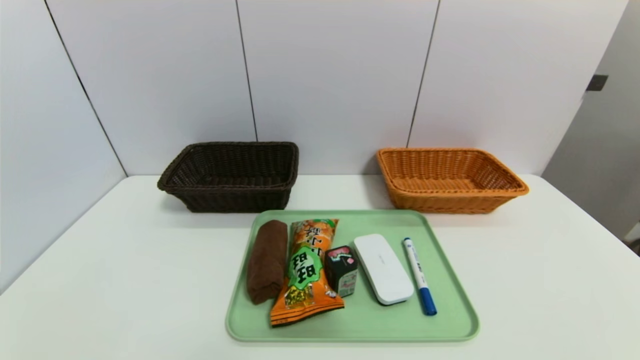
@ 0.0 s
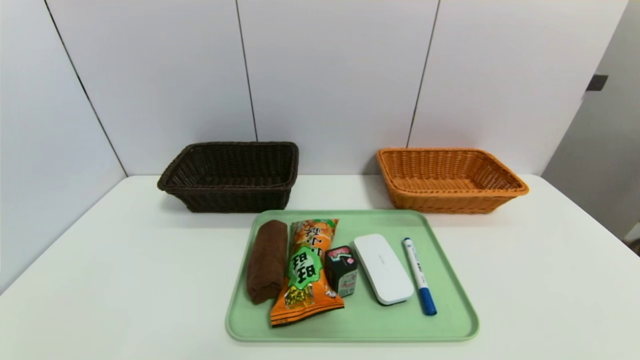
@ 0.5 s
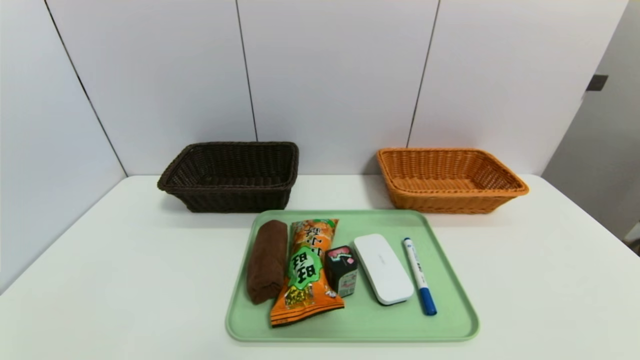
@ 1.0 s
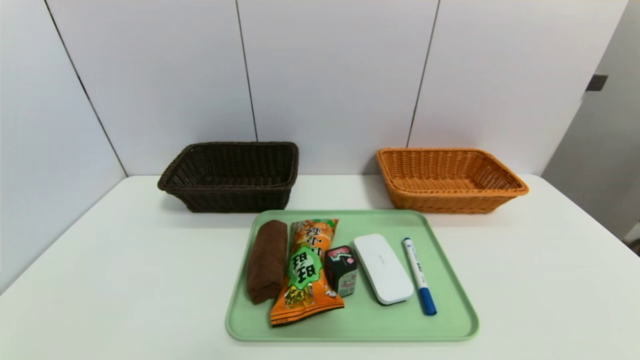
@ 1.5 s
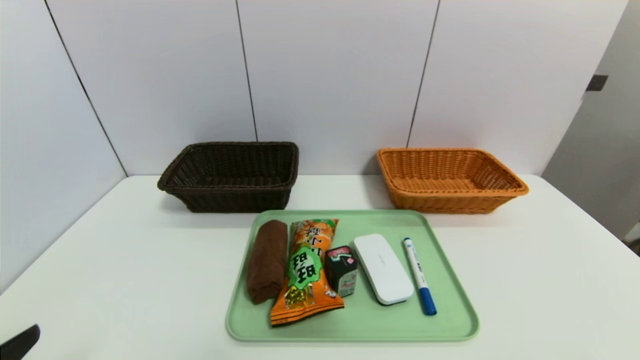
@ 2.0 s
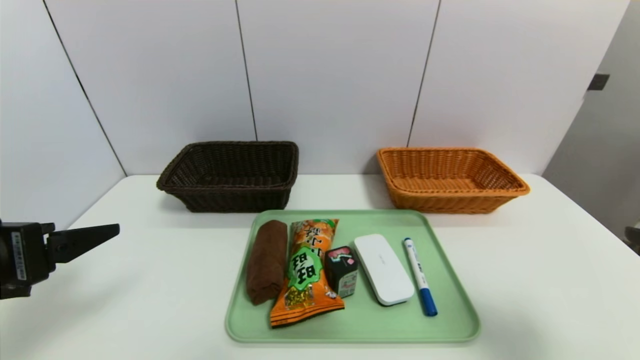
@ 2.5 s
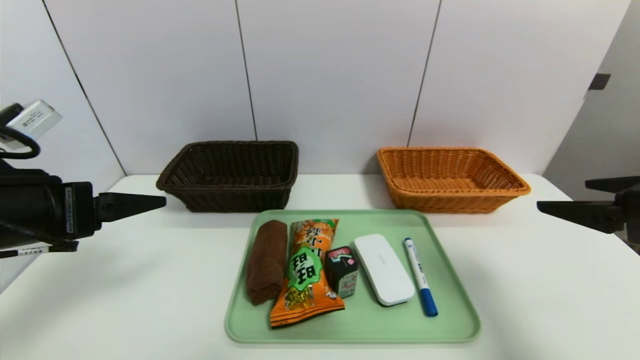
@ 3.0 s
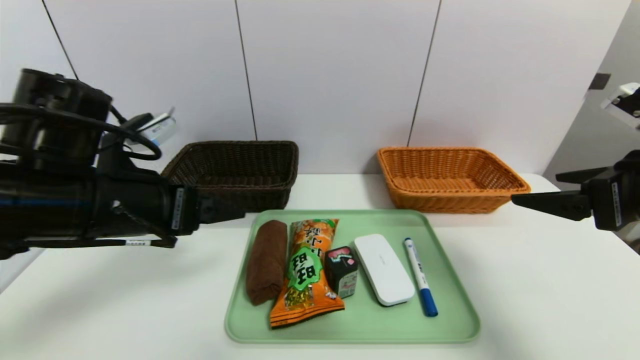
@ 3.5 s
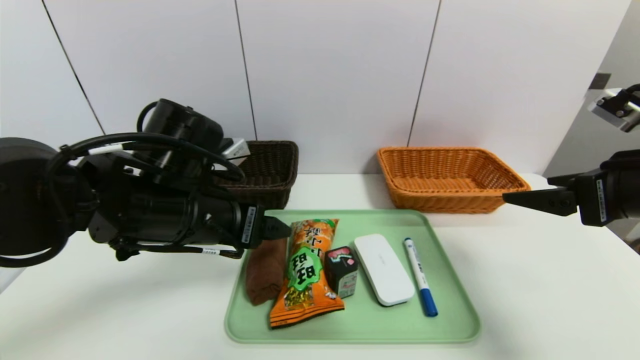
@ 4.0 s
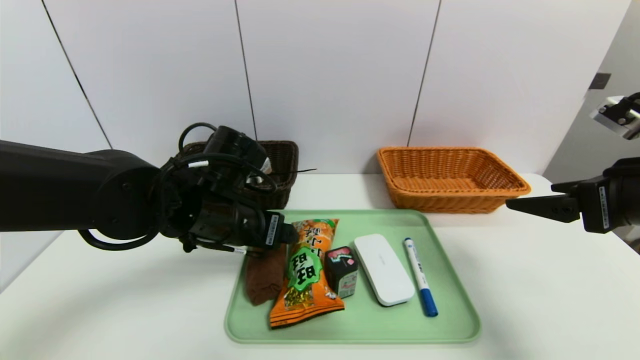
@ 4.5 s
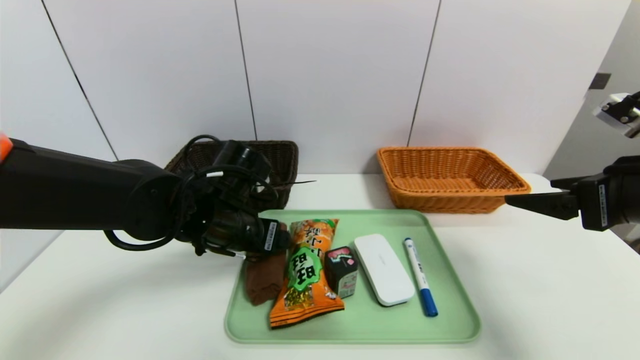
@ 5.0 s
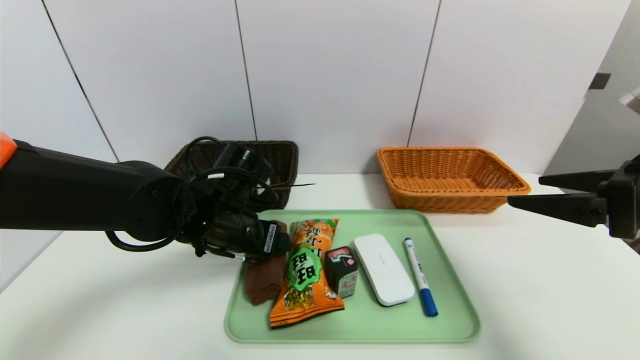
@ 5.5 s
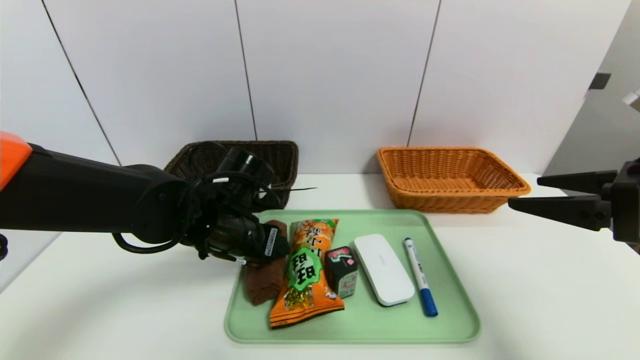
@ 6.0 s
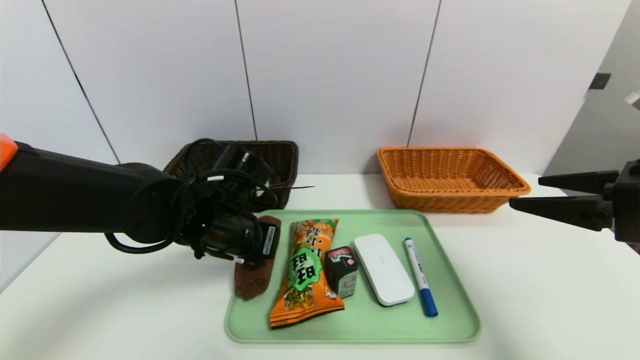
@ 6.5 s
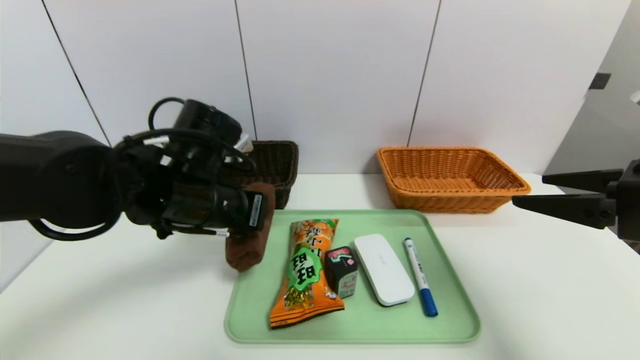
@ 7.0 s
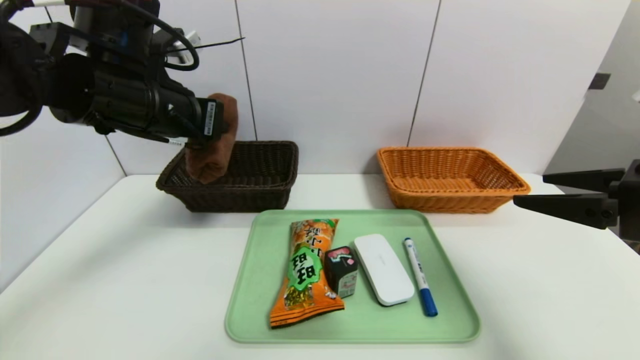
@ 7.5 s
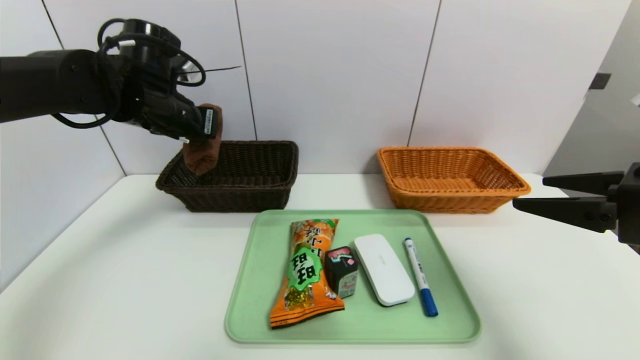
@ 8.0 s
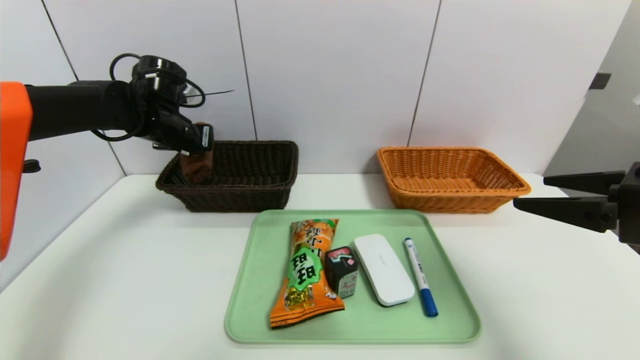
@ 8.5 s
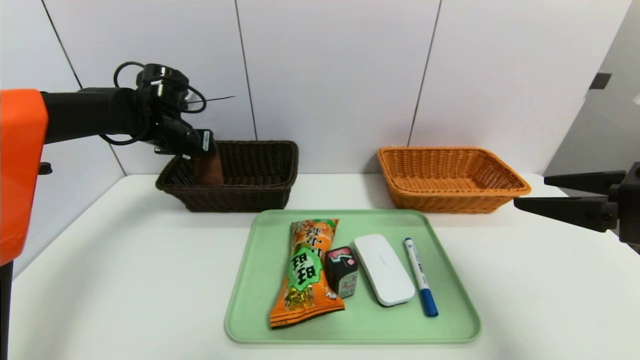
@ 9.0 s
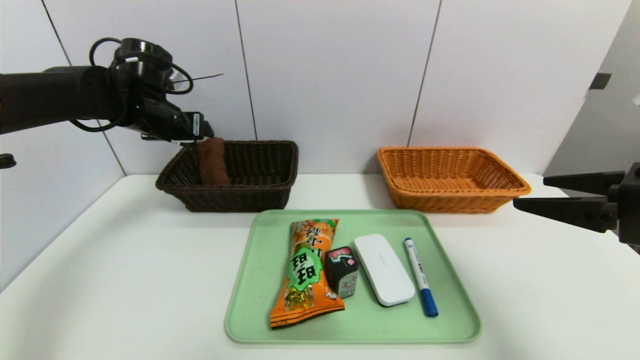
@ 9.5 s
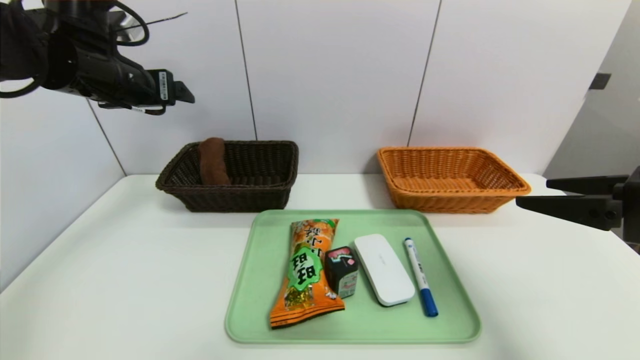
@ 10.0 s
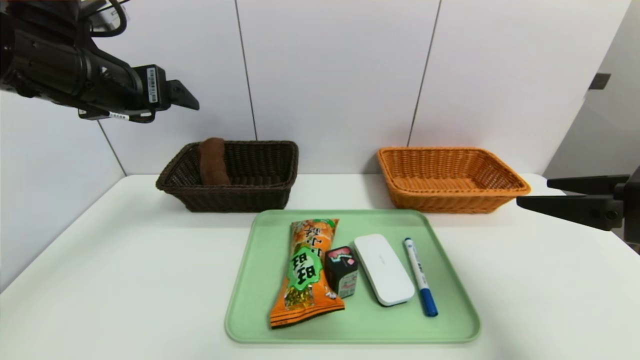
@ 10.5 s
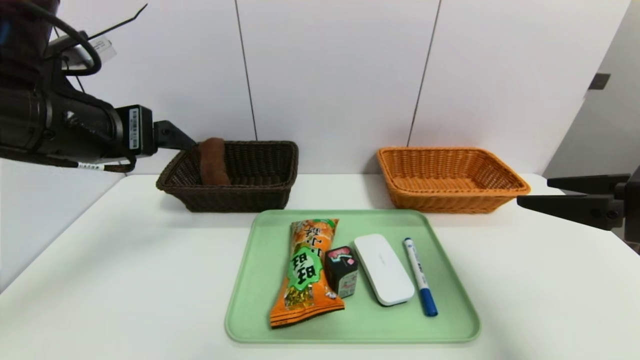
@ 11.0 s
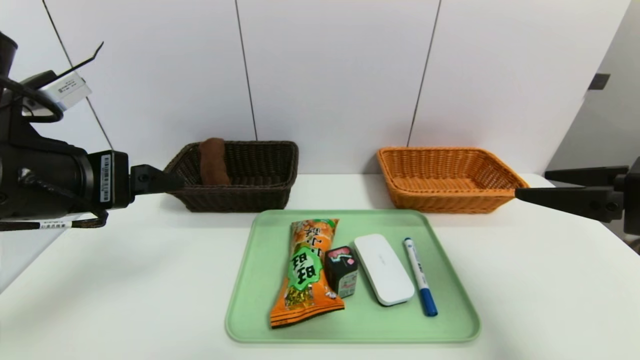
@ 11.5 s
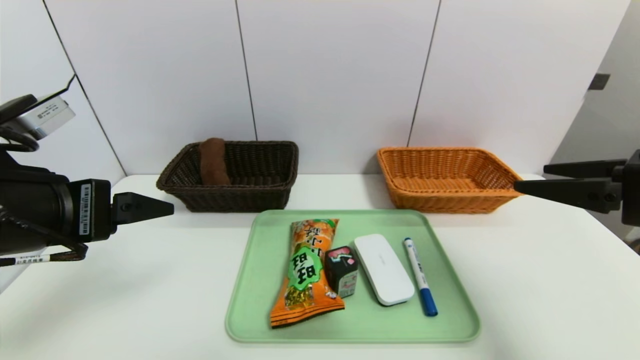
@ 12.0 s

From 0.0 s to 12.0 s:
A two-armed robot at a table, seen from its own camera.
Task of the whole recording: place the food in the right basket with the right gripper, and place the non food items in the left basket with the left gripper.
Step, from 0.0 s to 9.5 s: Grasp the brown towel and put it in the left basket.
From 2.0 s to 4.0 s: The left gripper travels forward and to the right by some 25 cm; the right gripper is displaced forward by approximately 20 cm.
From 4.0 s to 6.0 s: The left gripper goes approximately 10 cm downward and forward.
From 6.0 s to 8.0 s: The left gripper heads upward, to the left and forward, covering some 20 cm, and closes up.
From 8.0 s to 10.0 s: The left gripper changes place by approximately 5 cm, and opens.
From 10.0 s to 12.0 s: The left gripper heads backward, covering approximately 20 cm.

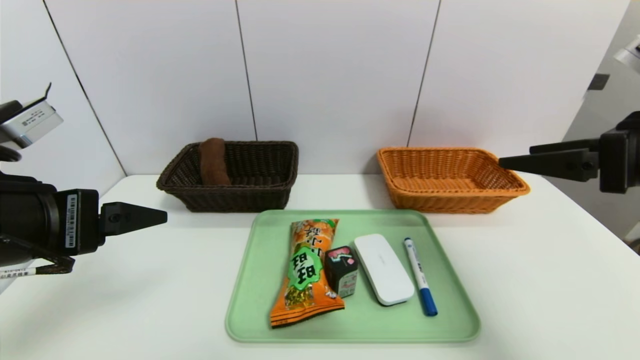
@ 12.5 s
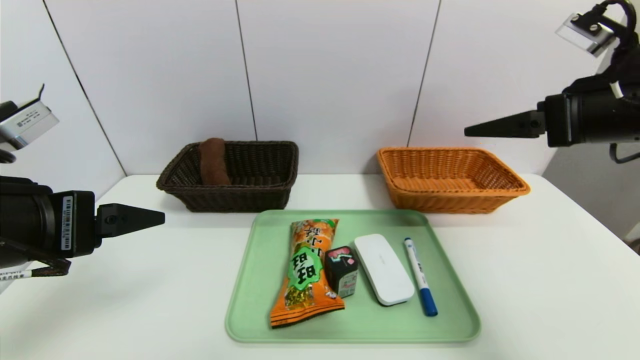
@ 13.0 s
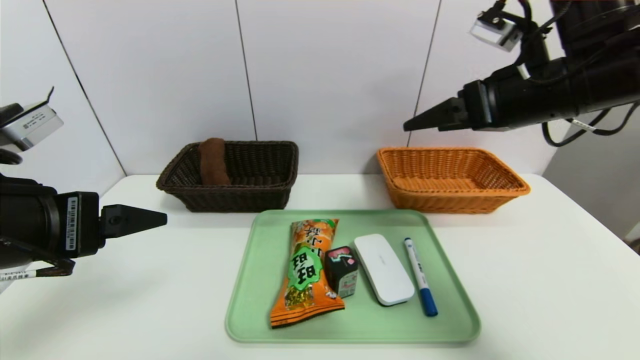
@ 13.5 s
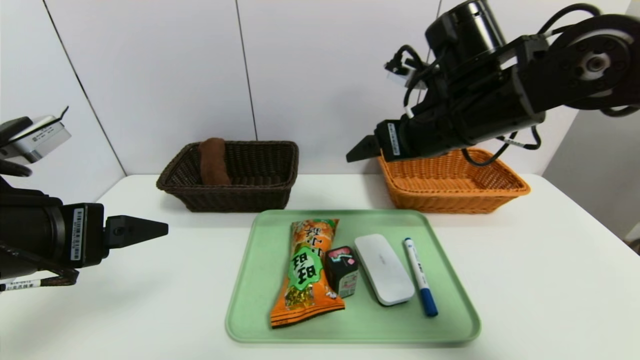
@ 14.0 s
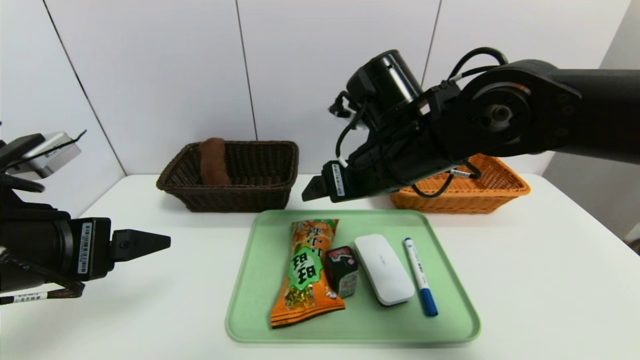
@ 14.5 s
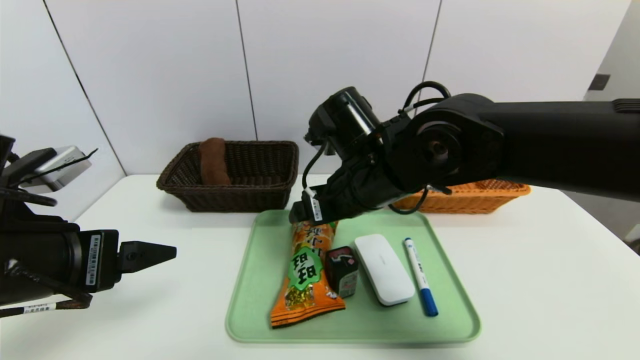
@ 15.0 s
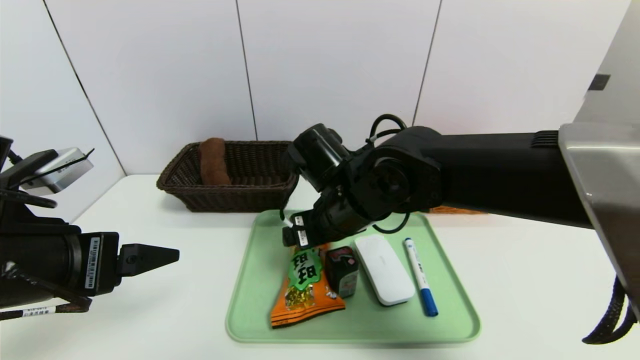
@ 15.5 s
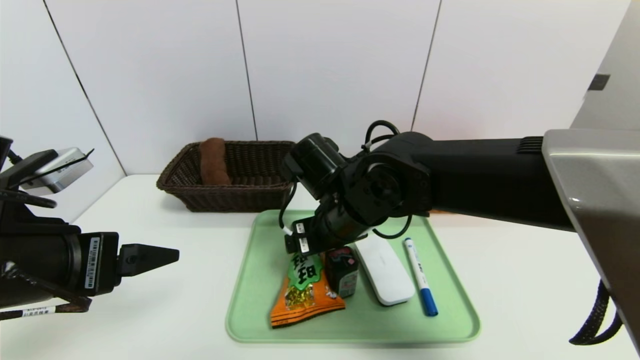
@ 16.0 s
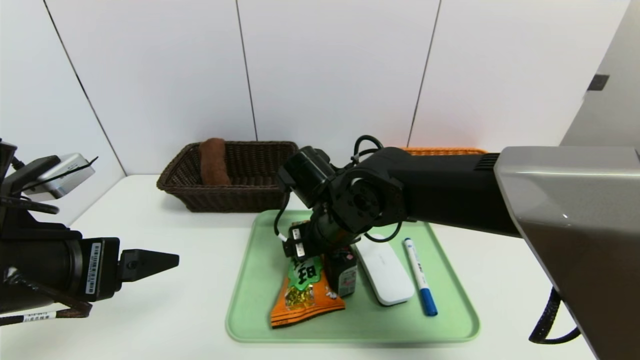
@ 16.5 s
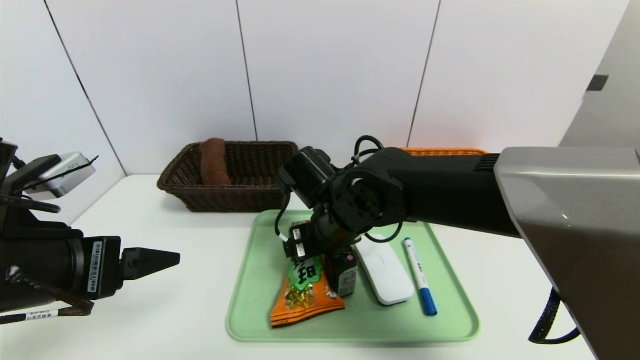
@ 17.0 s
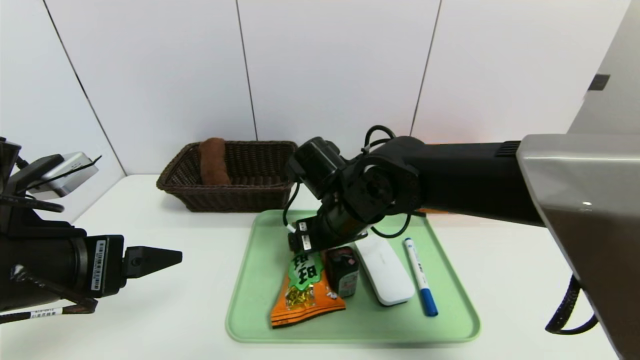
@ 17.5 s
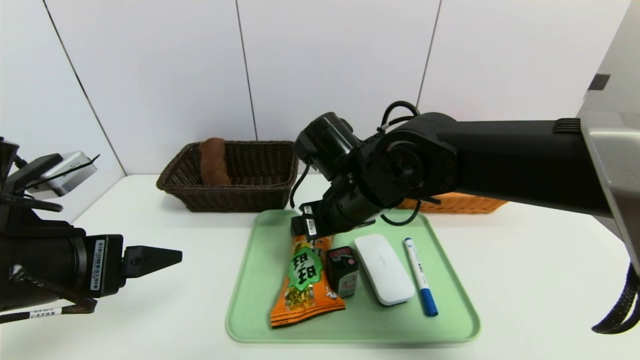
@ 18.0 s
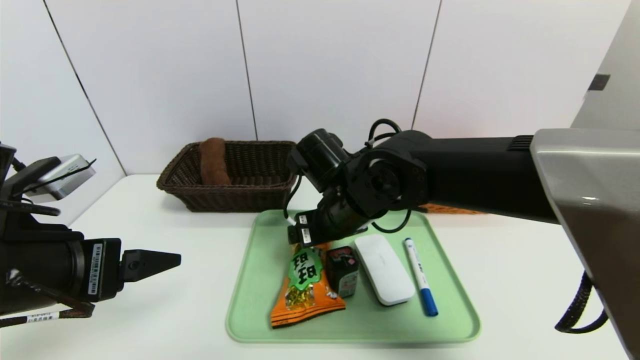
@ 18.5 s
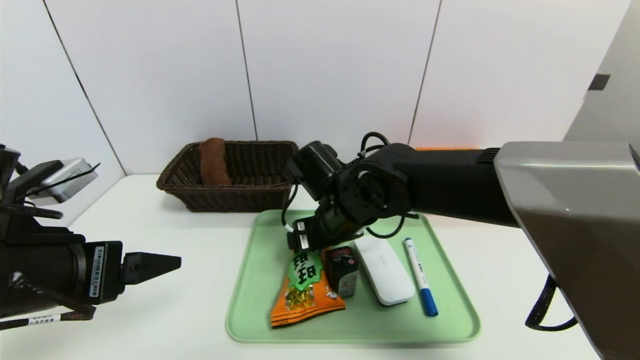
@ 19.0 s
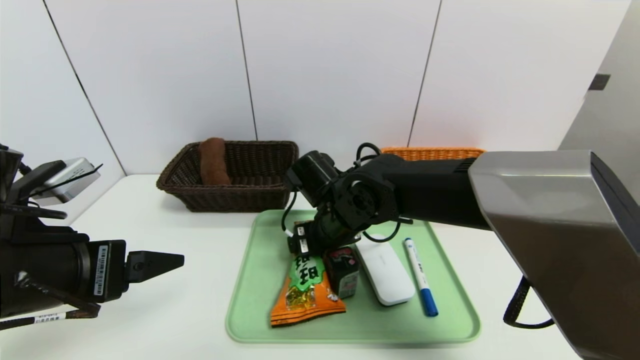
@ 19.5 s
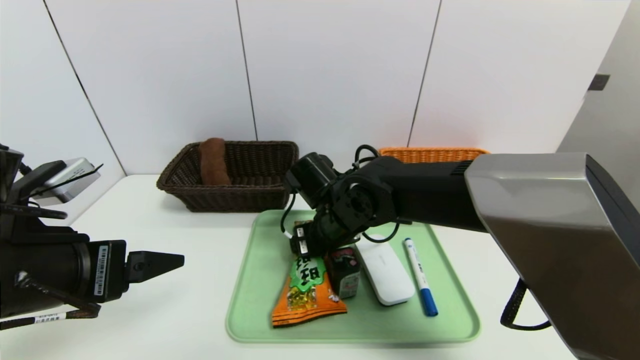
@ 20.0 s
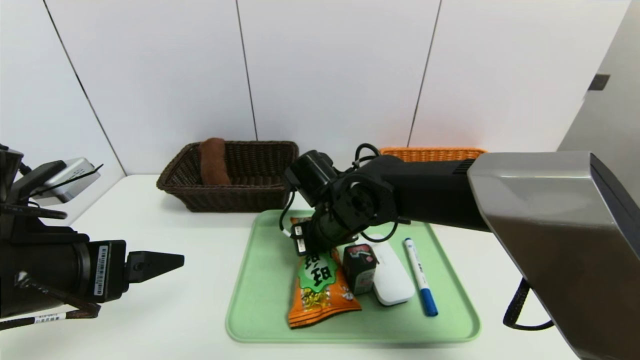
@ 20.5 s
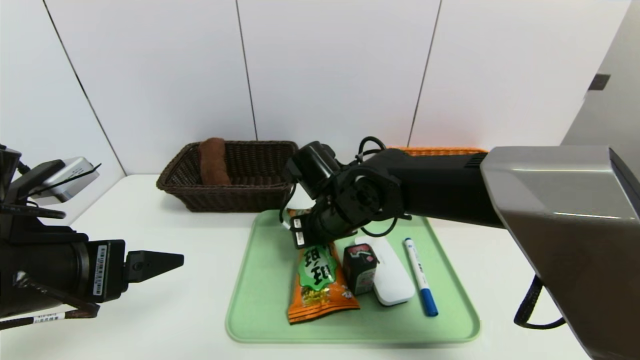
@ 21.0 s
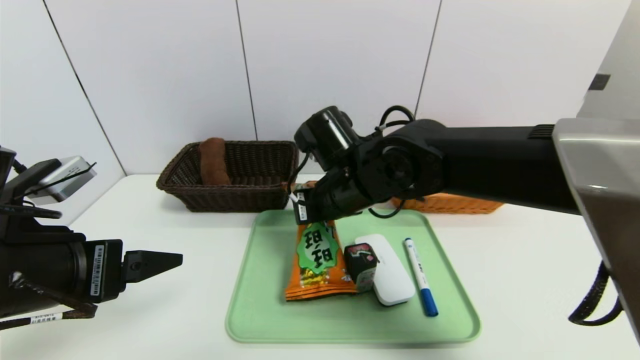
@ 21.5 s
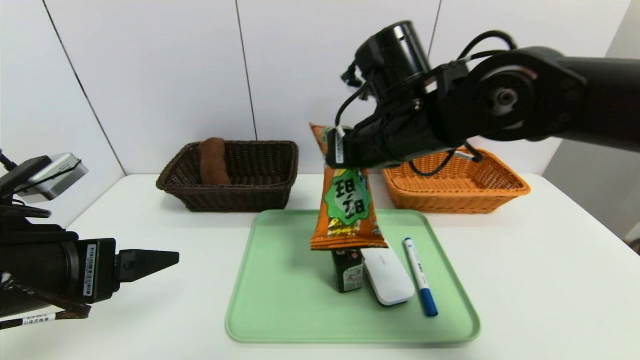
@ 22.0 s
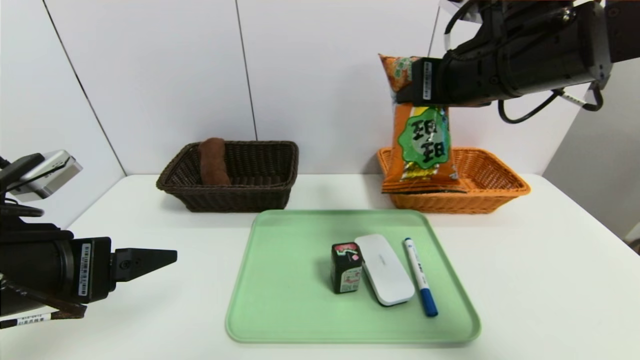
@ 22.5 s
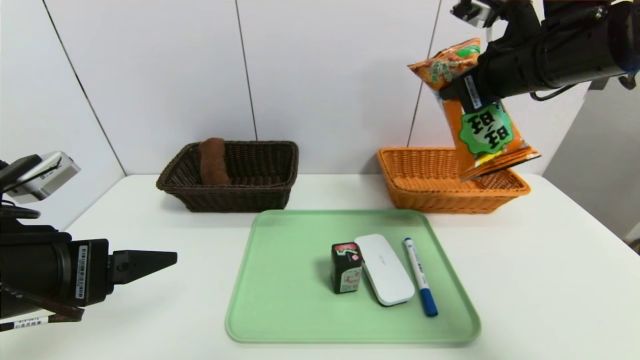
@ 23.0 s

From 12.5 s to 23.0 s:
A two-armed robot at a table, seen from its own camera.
Task of the whole recording: place the food in the right basket with the right gripper, and place the non food items in the left basket with the left gripper.
From 12.5 s to 14.5 s: The right gripper moves to the left, approximately 25 cm.
From 14.5 s to 16.5 s: The right gripper goes approximately 10 cm downward and to the left.
From 16.5 s to 19.0 s: There are only small adjustments of the grippers.
From 19.0 s to 21.0 s: The right gripper closes up.
From 21.0 s to 23.0 s: The right gripper is displaced to the right and upward by approximately 30 cm.
